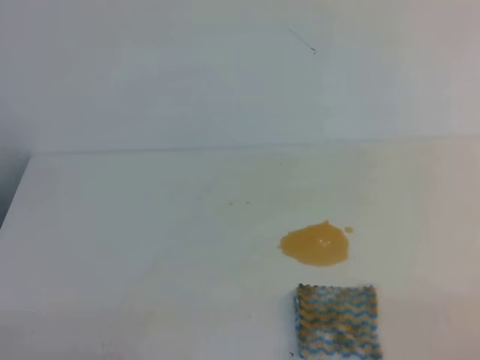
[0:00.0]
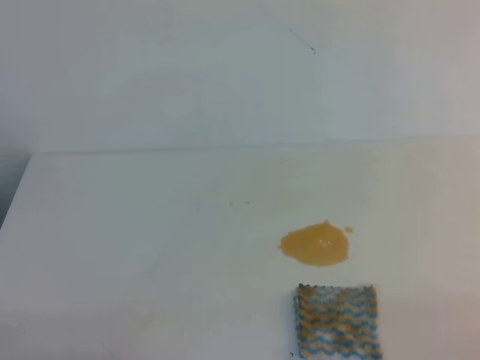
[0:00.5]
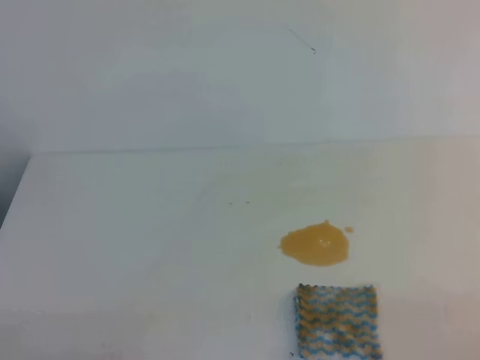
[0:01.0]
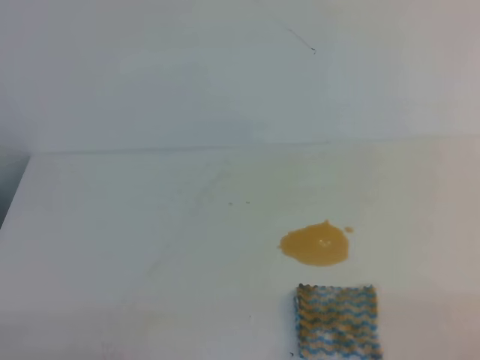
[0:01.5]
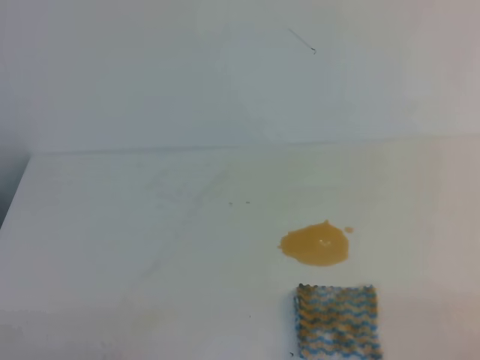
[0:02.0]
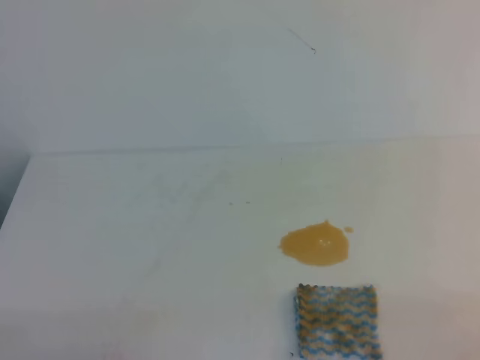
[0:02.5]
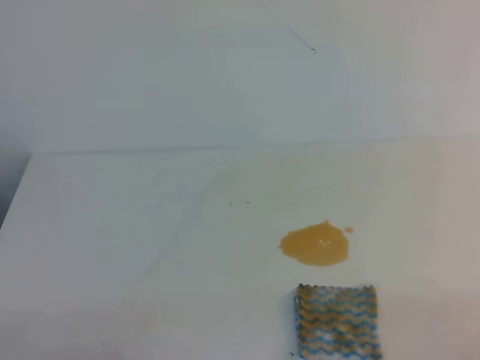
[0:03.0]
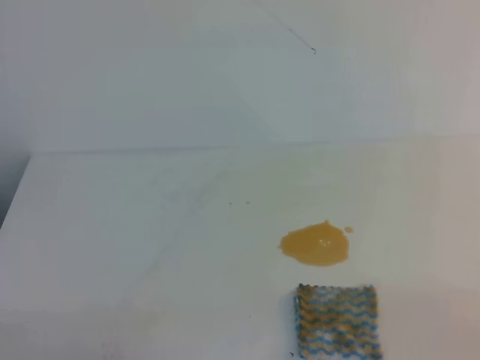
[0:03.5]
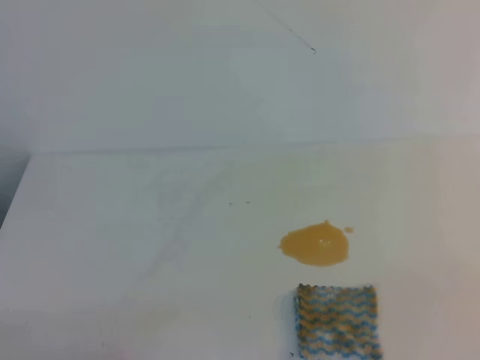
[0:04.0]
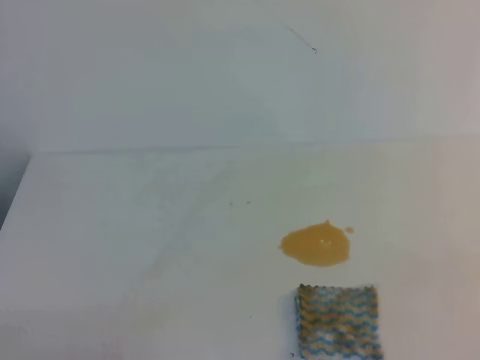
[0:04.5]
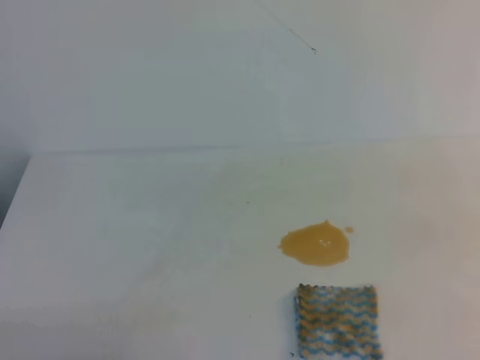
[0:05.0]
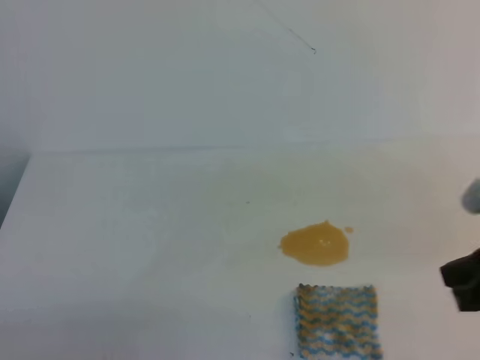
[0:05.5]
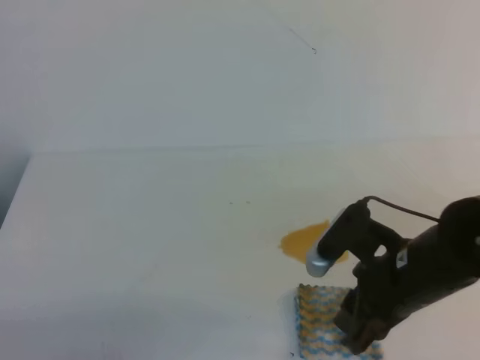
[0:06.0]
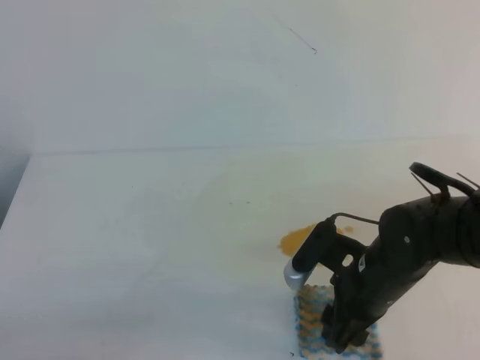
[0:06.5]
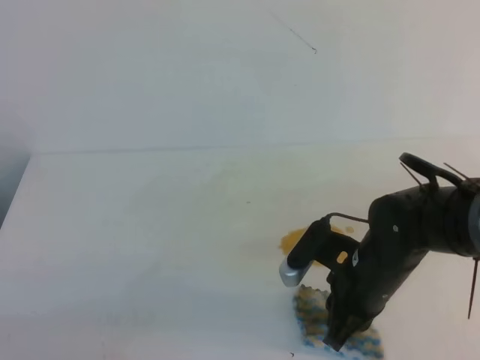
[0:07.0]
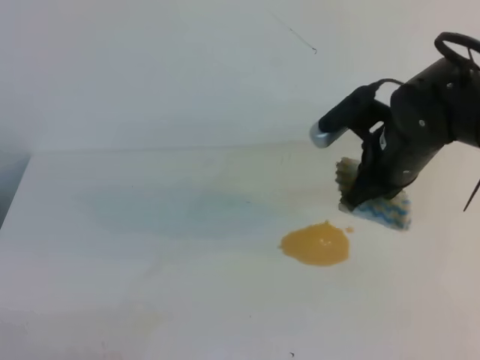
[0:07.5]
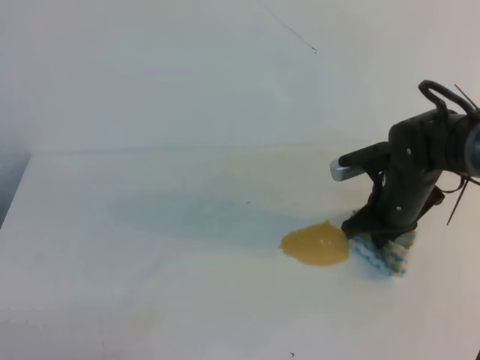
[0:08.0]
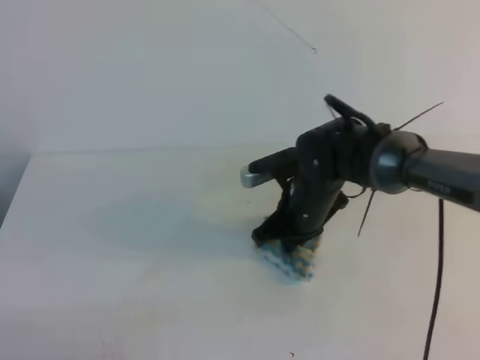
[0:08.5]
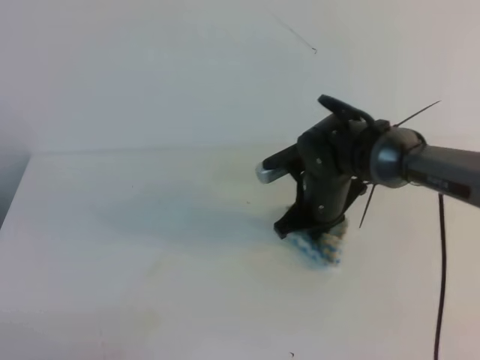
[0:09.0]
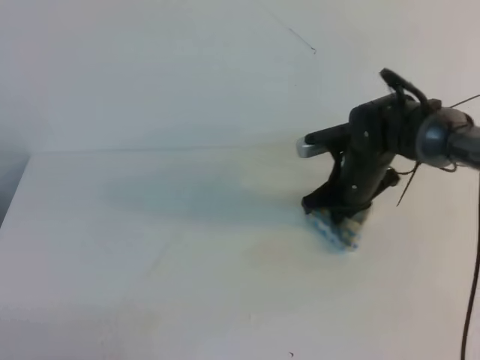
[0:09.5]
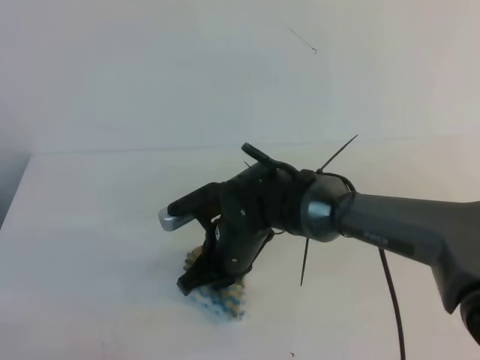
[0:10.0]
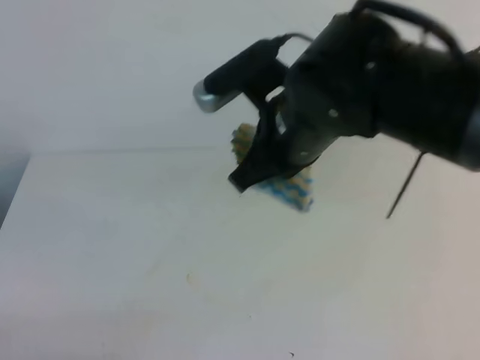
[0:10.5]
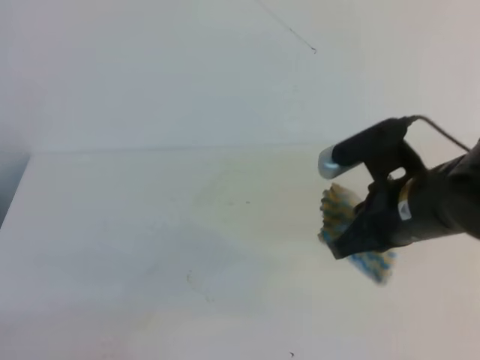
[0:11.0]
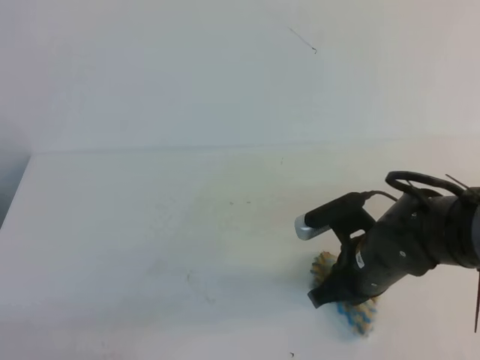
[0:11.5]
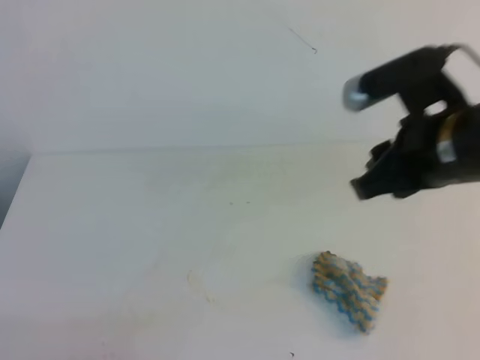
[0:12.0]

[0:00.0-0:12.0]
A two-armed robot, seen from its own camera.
0:00.0 to 0:02.0: Both grippers stay put.
0:04.0 to 0:06.0: The right gripper heads forward and to the left, covering some 25 cm, and opens up.
0:06.0 to 0:08.0: The right gripper travels forward by about 15 cm, and closes up.
0:08.0 to 0:10.0: The right gripper swings left and right, about 20 cm each way, with 2 reversals.
0:10.0 to 0:12.0: The right gripper moves to the right, upward and backward, about 25 cm, and opens.

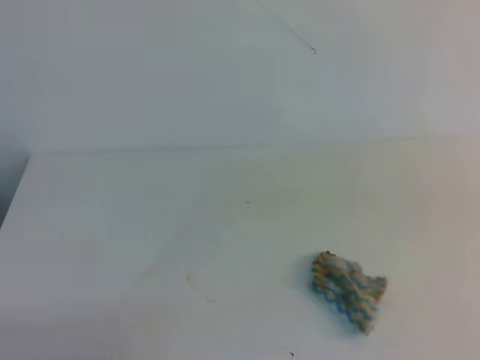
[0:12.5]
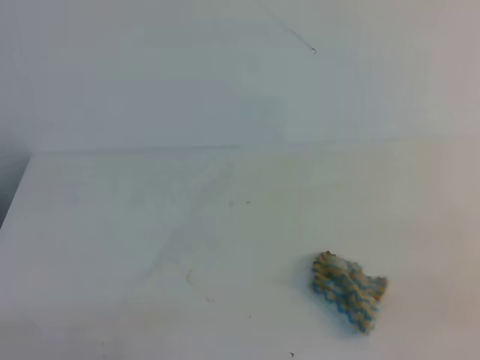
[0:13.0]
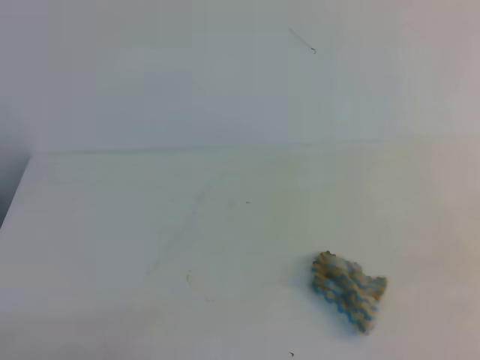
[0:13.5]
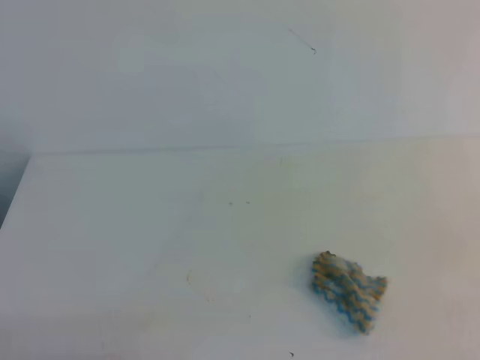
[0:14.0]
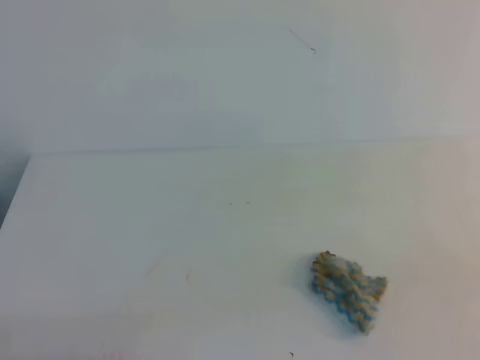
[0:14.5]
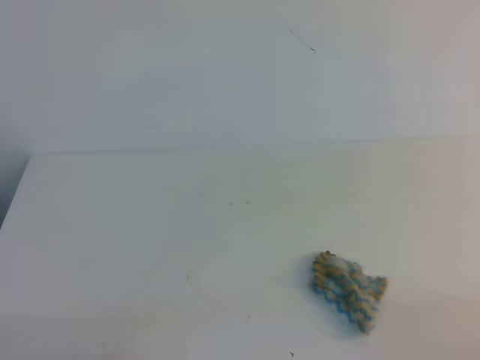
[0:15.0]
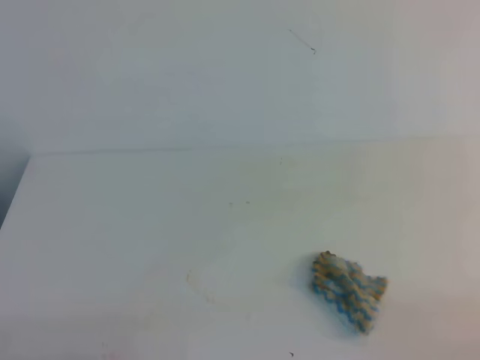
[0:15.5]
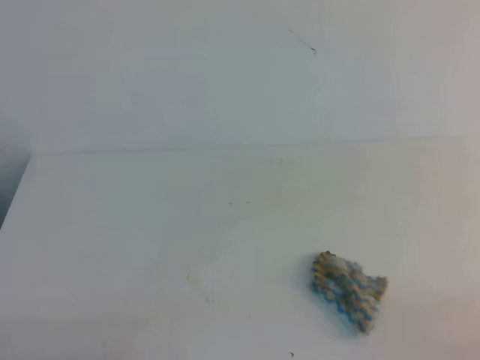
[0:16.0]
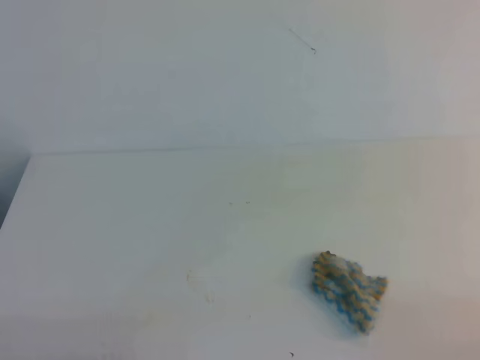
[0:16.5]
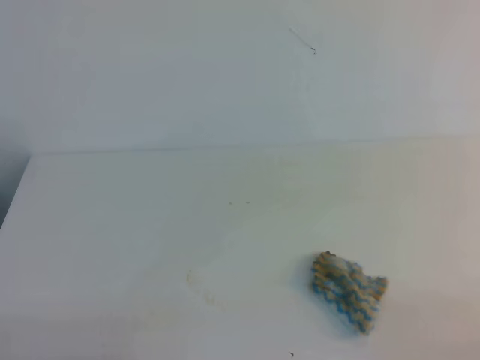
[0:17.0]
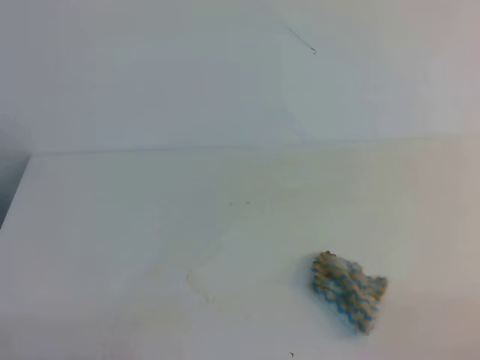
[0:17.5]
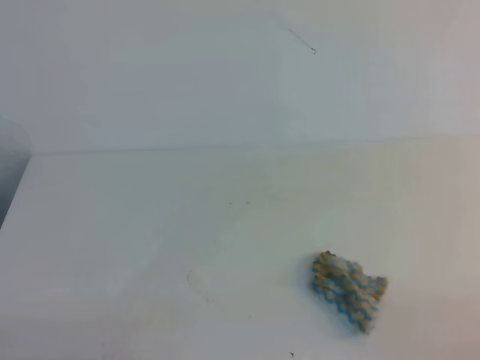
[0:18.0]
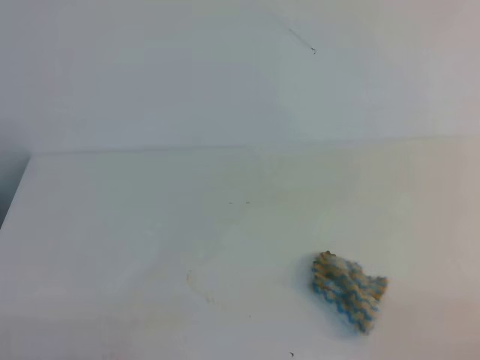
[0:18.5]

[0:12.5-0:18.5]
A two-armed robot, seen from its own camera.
0:16.5 to 0:18.5: Both grippers stay put.
